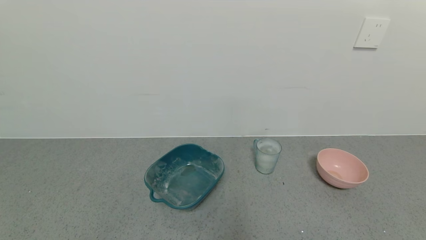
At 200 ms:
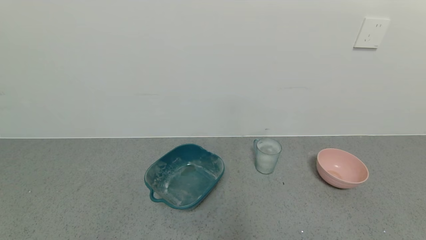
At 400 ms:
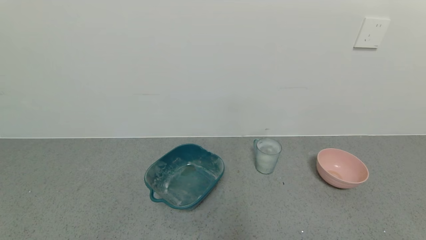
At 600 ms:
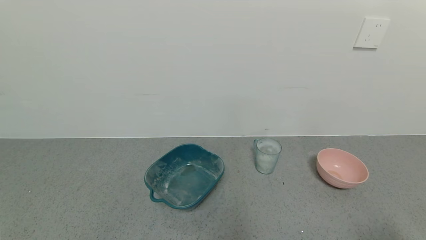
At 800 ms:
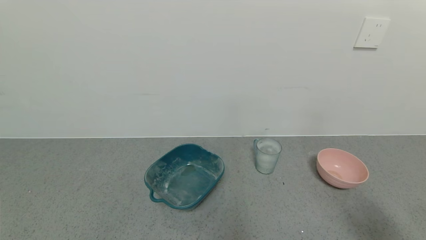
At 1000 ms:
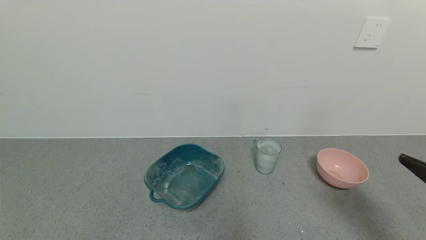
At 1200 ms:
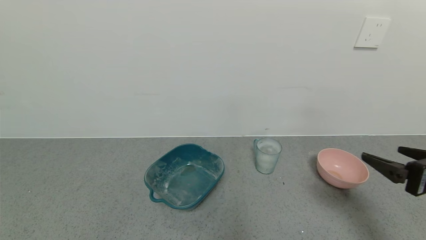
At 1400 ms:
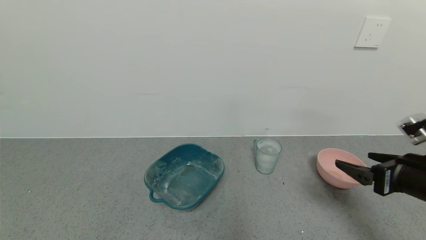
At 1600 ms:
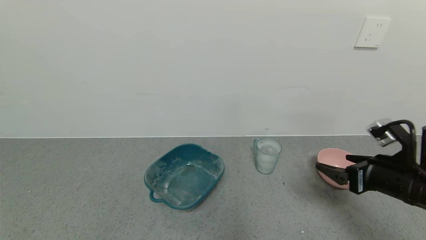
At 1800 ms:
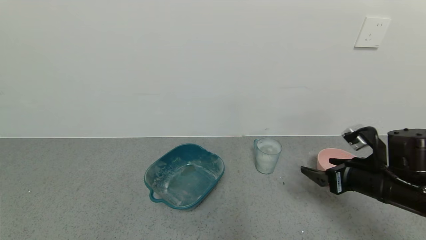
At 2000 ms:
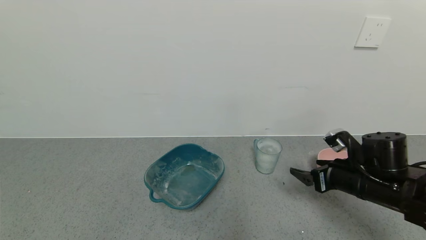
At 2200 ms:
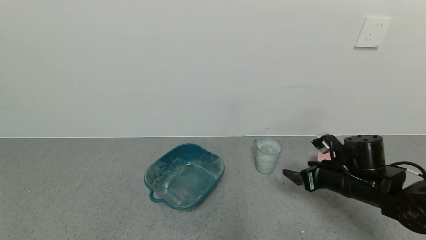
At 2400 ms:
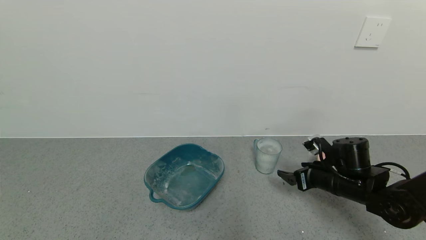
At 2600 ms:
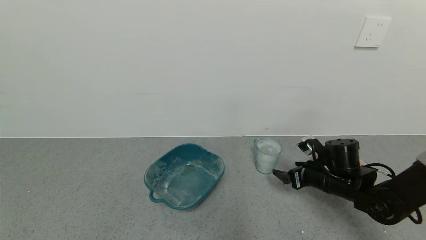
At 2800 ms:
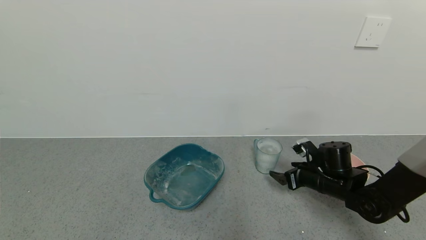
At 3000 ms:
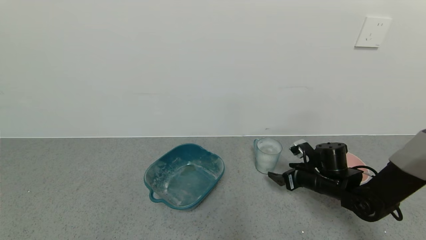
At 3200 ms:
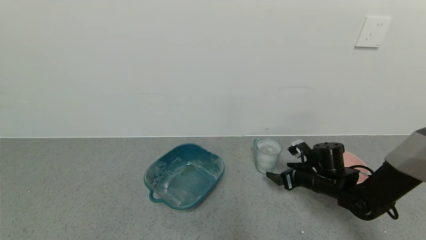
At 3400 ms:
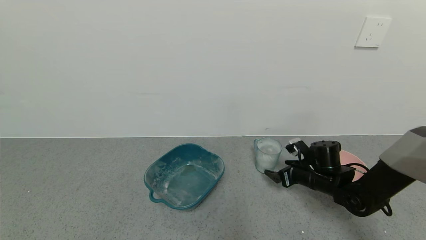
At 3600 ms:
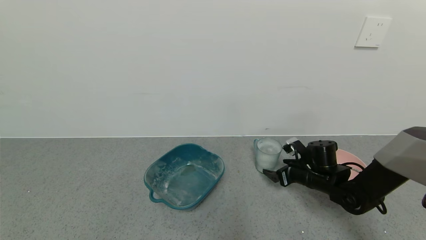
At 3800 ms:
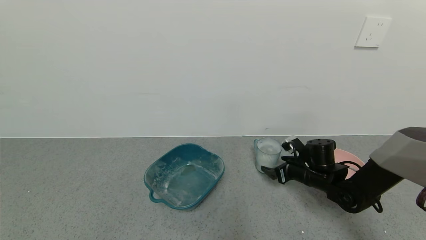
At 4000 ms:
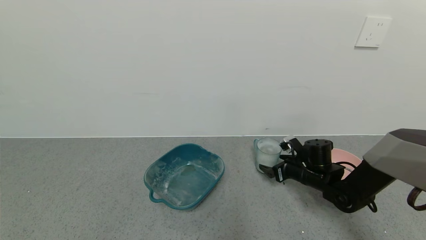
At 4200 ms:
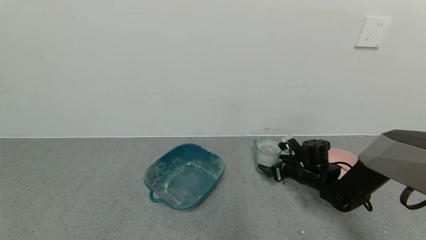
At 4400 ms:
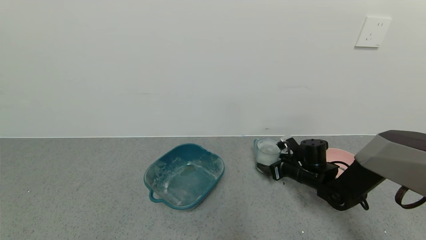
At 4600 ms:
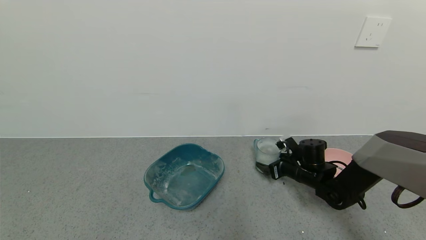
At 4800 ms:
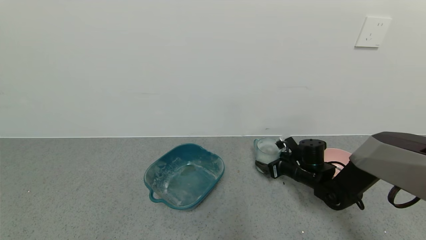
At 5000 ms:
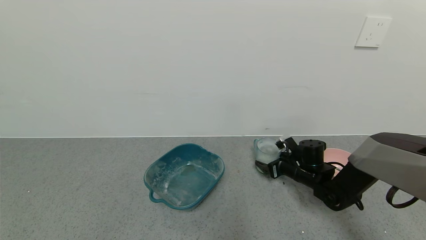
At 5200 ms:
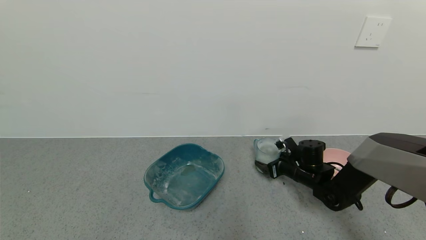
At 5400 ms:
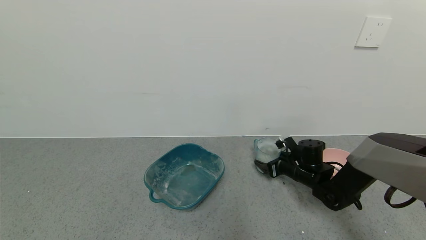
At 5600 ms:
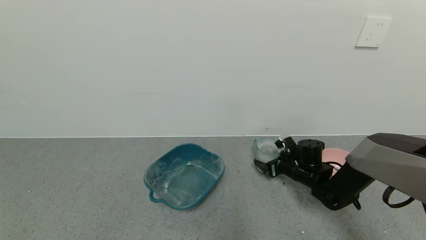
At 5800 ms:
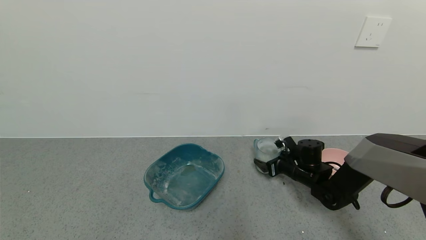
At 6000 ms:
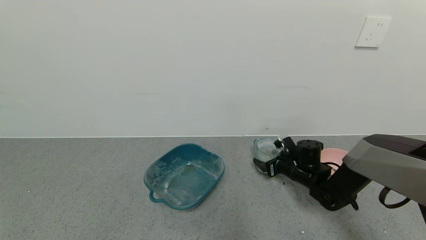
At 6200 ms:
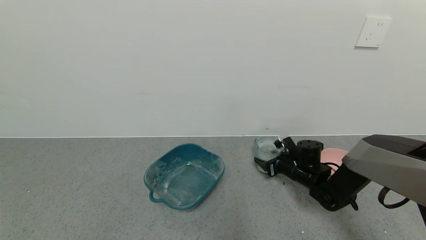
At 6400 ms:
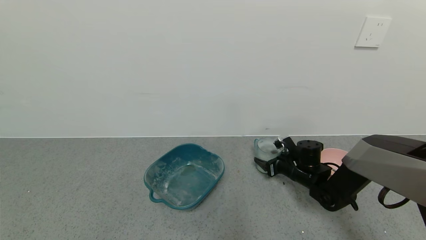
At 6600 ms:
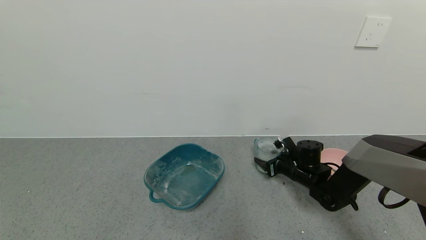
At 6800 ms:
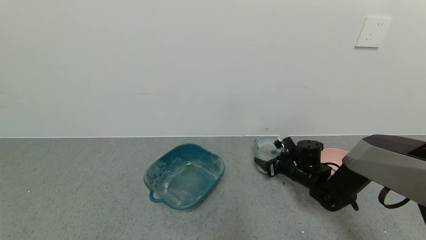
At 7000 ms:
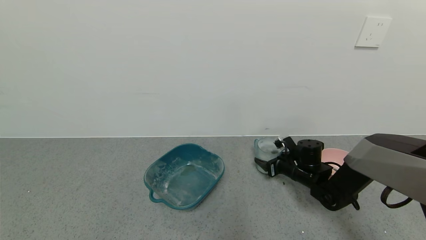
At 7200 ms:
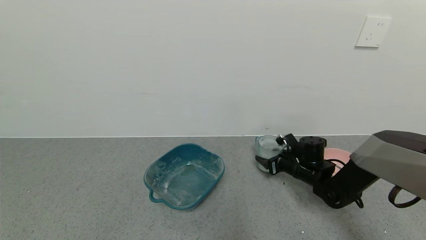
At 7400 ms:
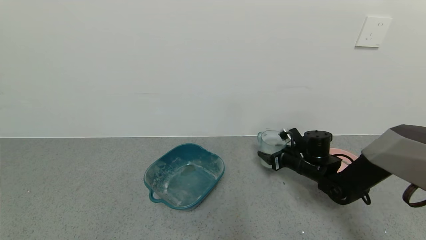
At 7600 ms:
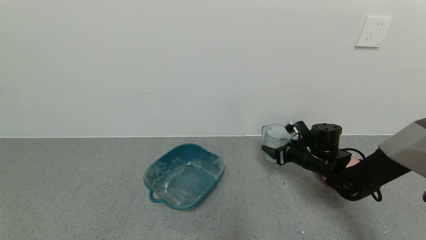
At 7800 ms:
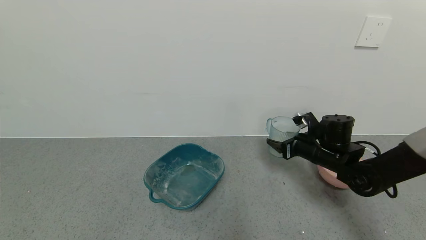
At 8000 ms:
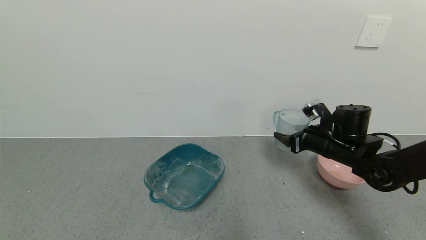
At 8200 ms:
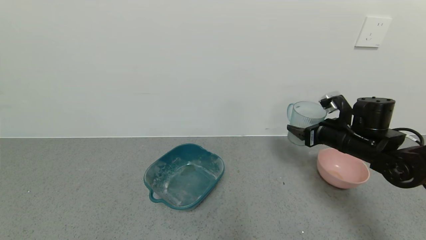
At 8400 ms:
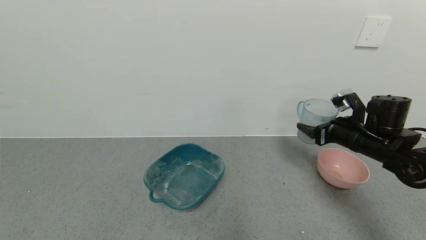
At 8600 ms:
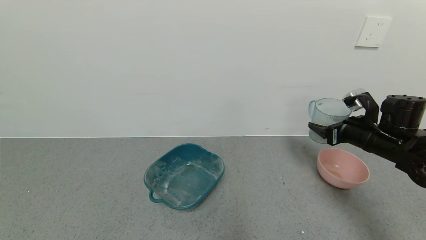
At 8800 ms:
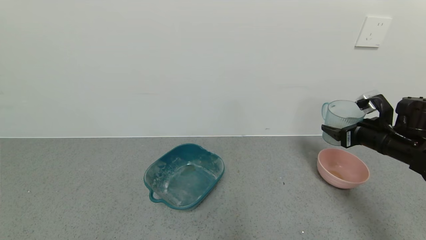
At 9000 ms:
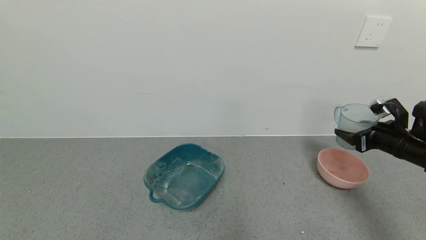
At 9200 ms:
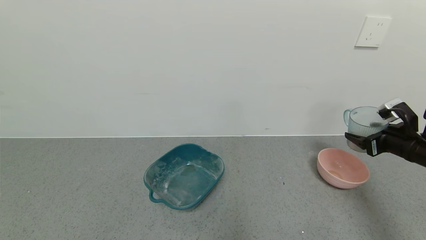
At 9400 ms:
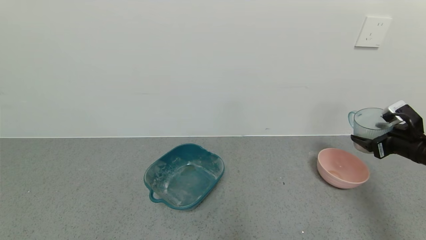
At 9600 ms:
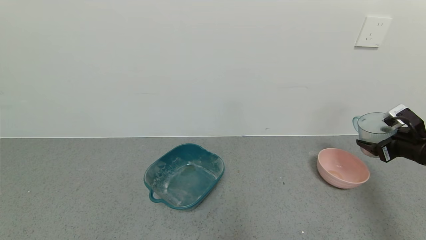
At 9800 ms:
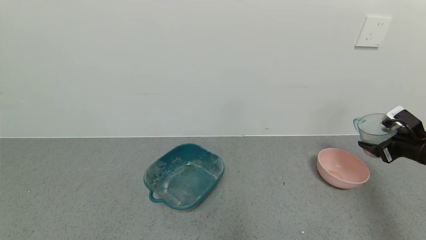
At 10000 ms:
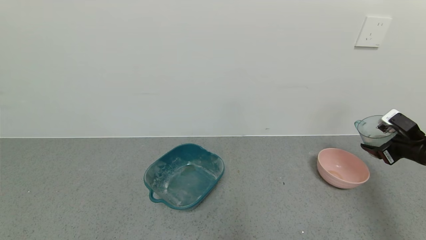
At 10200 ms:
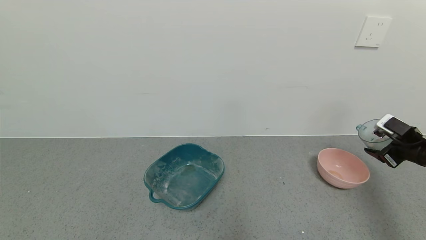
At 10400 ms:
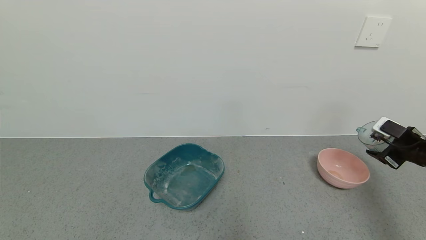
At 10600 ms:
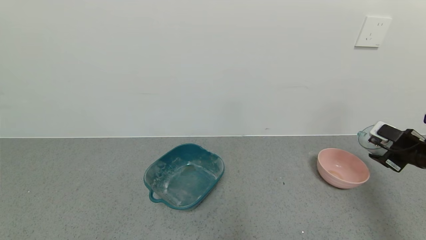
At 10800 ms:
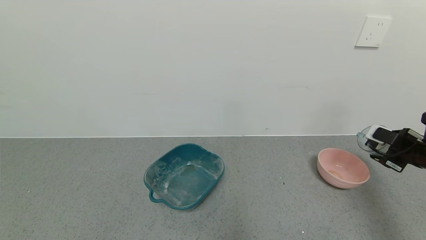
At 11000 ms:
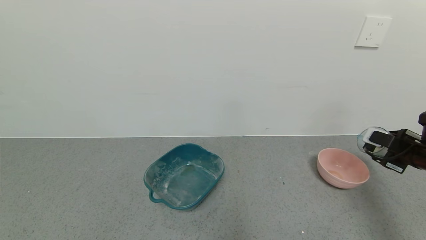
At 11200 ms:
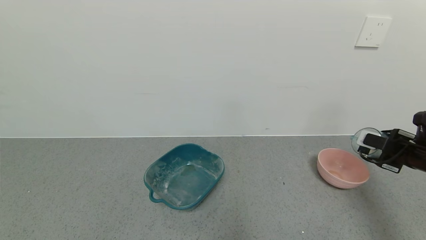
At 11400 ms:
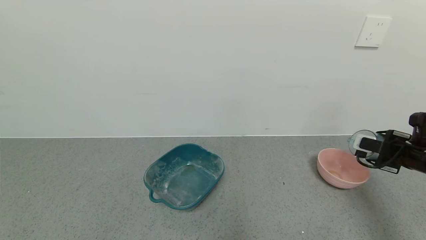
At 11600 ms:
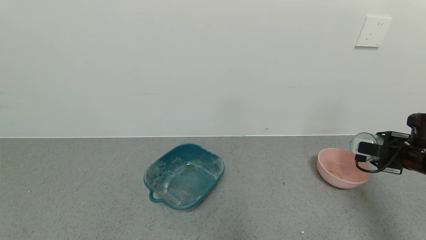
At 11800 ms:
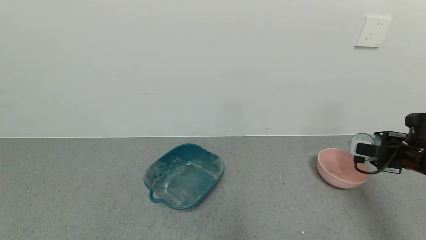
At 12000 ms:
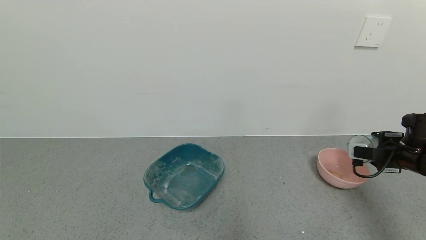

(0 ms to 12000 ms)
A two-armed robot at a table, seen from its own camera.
Task of the whole recording: use a gripper to pick up the cup and pour the powder into a bowl or tray.
Step, 0 ms - 6200 ms: Grasp the glass of powder with the right gripper.
0 ms - 1600 ms: The right gripper is displaced forward by about 25 cm.
1600 ms - 3000 ms: The right gripper shifts about 15 cm downward, forward and to the left.
3000 ms - 4400 ms: The right gripper shifts by roughly 5 cm.
4400 ms - 6000 ms: The right gripper closes up.
6000 ms - 7600 ms: The right gripper is displaced upward by roughly 5 cm, and closes its fingers.
7600 ms - 9000 ms: The right gripper moves to the right and upward, some 20 cm.
9000 ms - 10400 ms: The right gripper heads to the right, covering some 5 cm.

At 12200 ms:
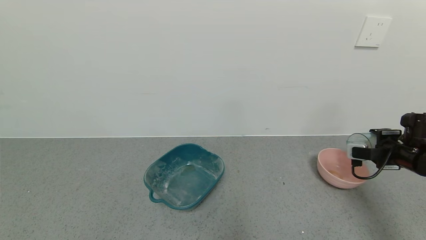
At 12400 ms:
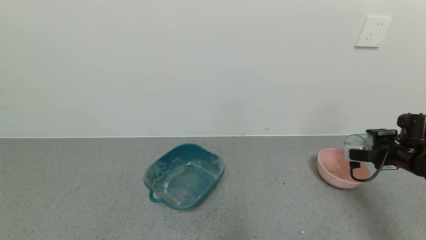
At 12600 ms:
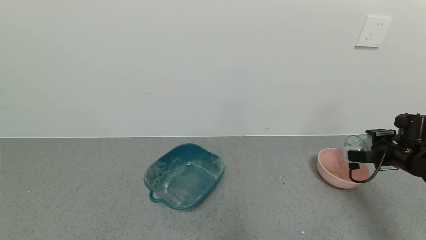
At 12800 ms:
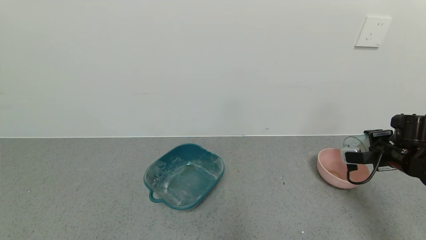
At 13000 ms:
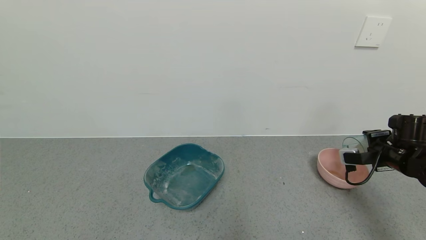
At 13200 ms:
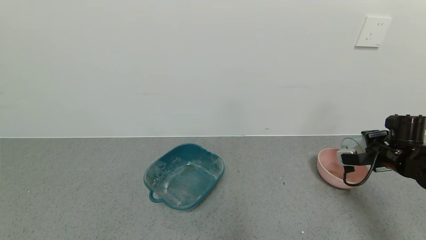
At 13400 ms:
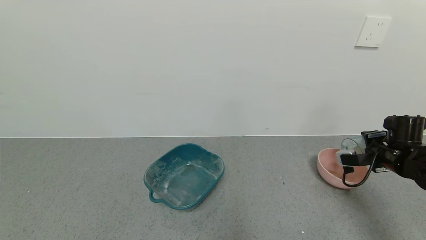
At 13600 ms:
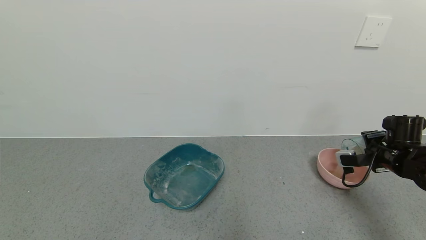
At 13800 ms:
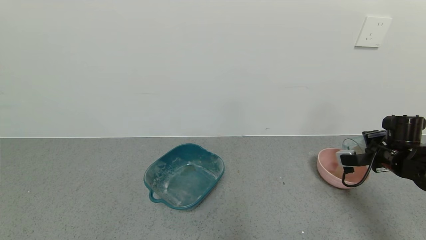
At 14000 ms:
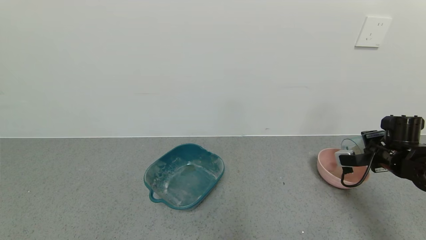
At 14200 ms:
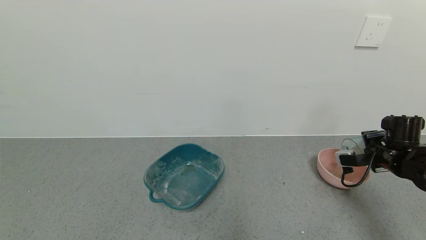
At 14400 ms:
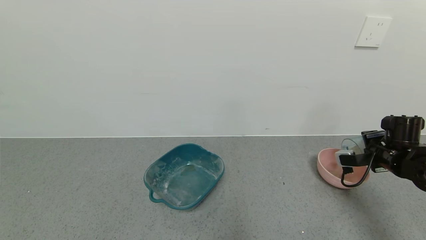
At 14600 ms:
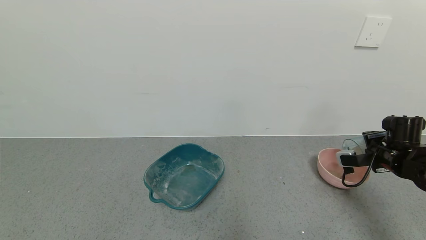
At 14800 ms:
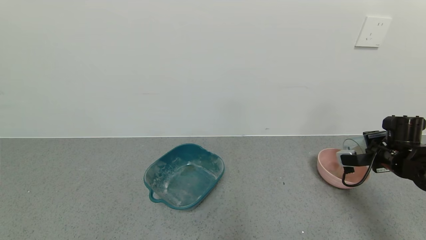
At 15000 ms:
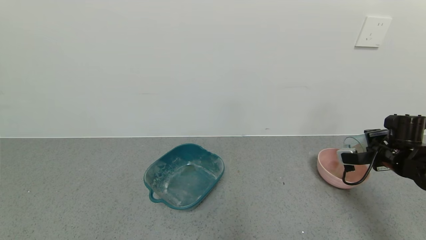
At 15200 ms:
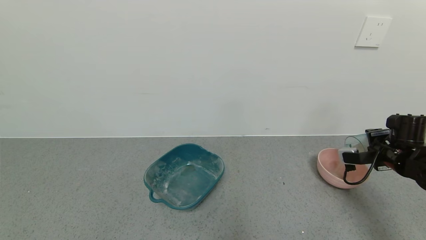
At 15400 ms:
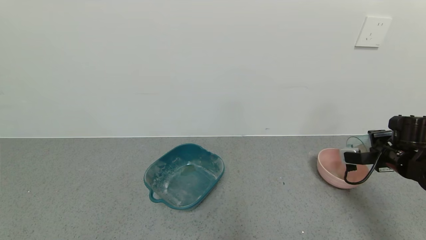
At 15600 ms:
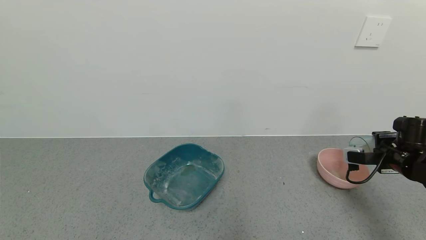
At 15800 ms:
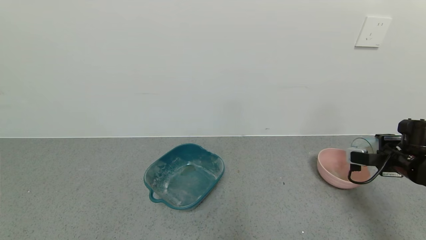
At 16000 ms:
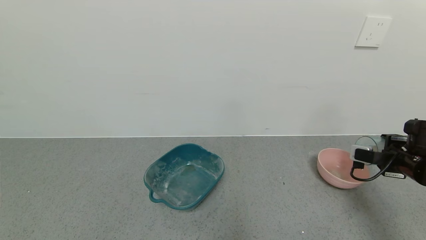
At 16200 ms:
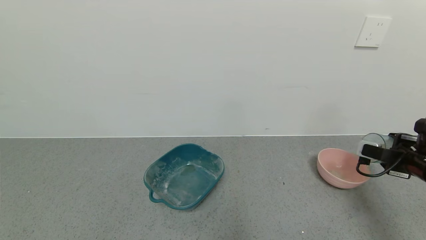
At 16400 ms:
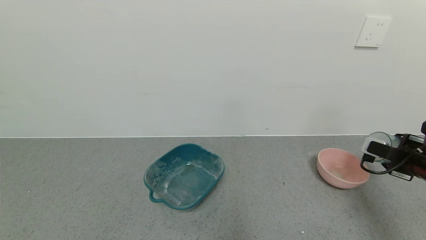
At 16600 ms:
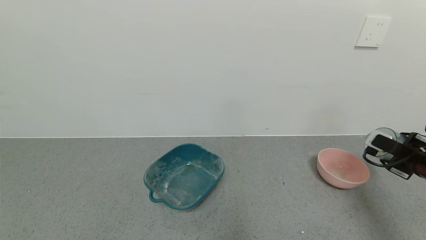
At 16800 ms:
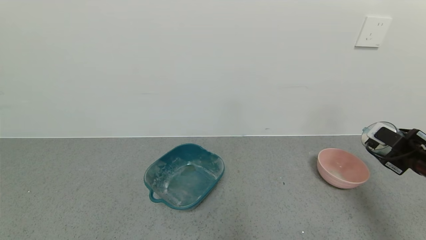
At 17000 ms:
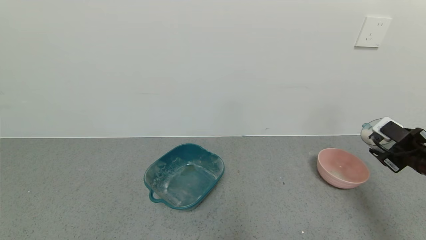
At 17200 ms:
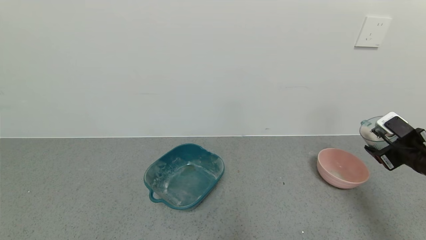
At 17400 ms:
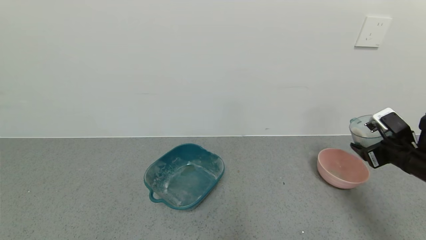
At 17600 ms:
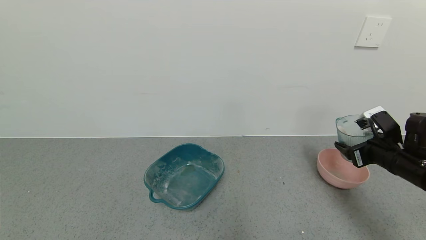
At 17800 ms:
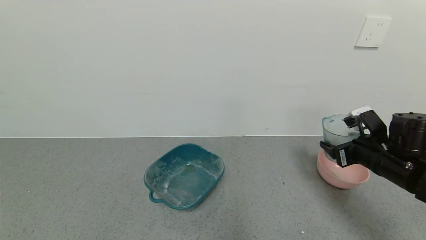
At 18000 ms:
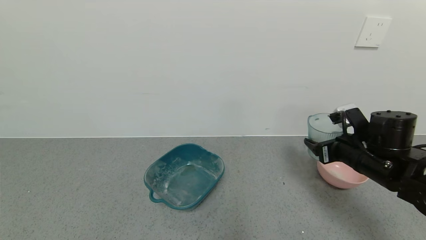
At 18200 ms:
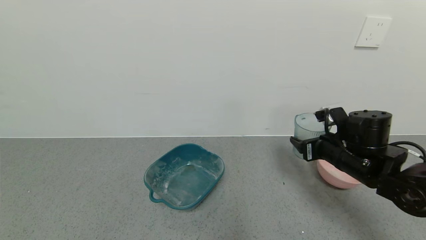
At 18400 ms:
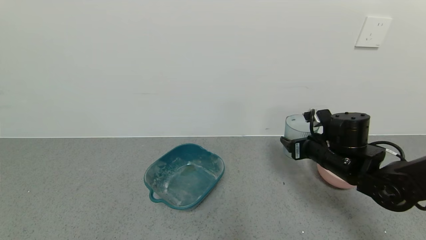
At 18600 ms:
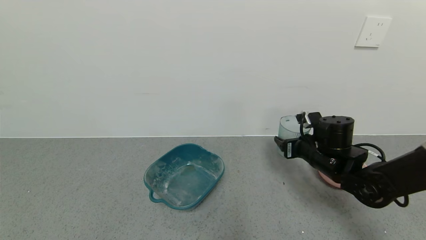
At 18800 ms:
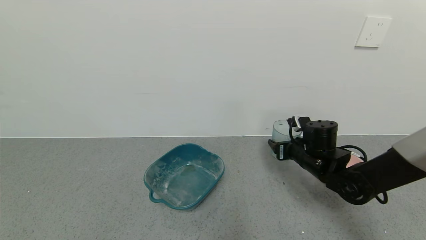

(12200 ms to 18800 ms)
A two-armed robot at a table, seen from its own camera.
Task of the whole recording: use a gripper to pick up the cup and pour the powder into a bowl or tray.
Step, 12200 ms - 15800 ms: Pour the powder into the pink bowl with the right gripper.
12200 ms - 15400 ms: There are only small adjustments of the grippers.
15400 ms - 17200 ms: The right gripper moves approximately 5 cm.
17200 ms - 18800 ms: The right gripper shifts about 20 cm to the left and forward.
